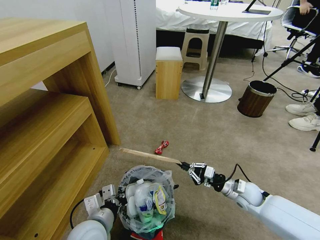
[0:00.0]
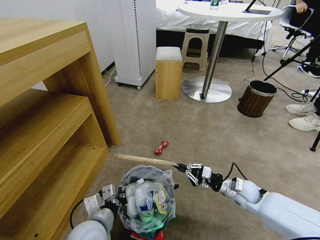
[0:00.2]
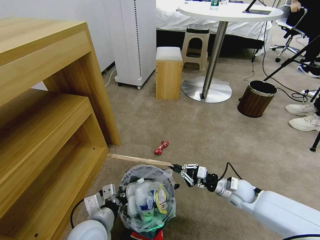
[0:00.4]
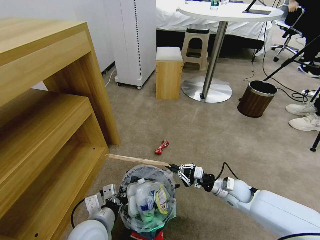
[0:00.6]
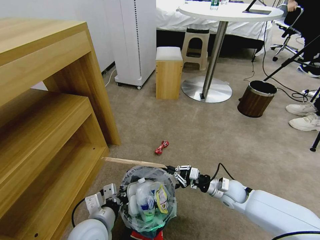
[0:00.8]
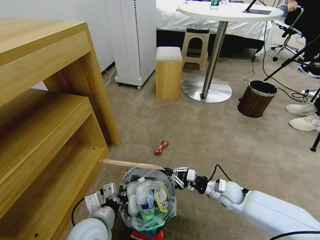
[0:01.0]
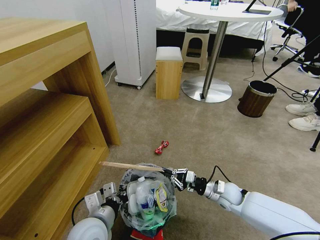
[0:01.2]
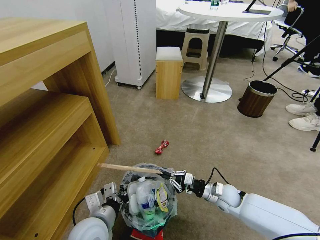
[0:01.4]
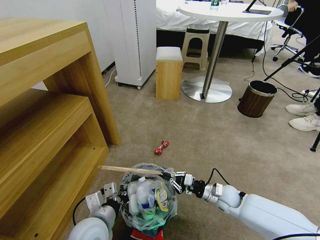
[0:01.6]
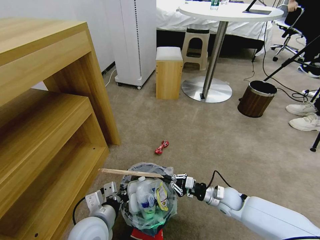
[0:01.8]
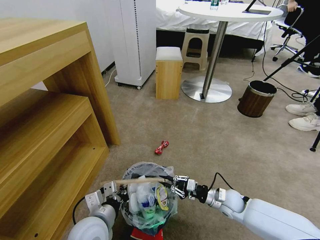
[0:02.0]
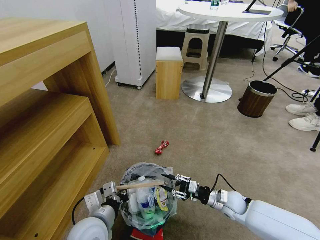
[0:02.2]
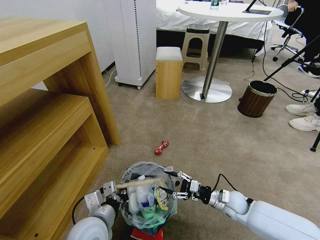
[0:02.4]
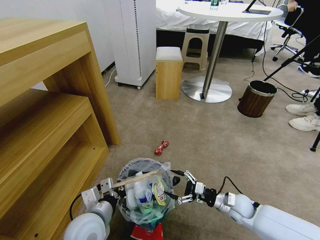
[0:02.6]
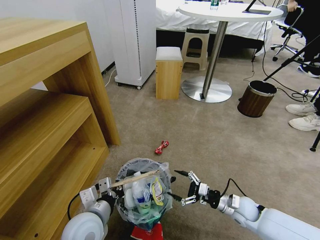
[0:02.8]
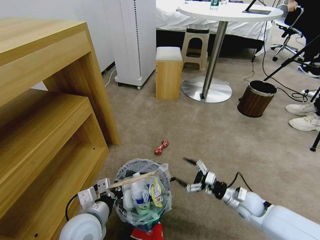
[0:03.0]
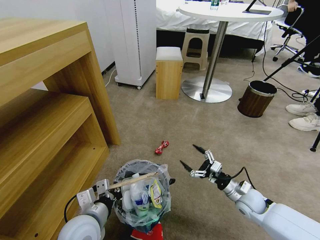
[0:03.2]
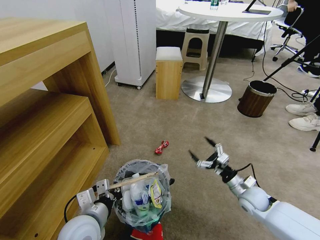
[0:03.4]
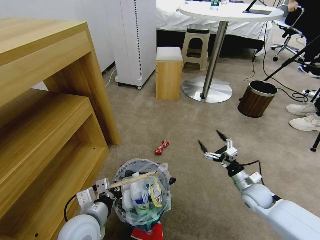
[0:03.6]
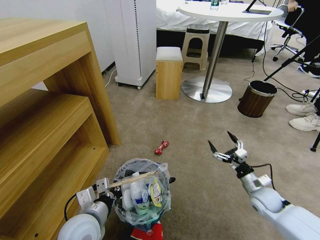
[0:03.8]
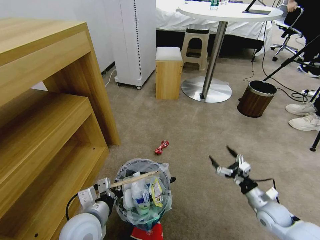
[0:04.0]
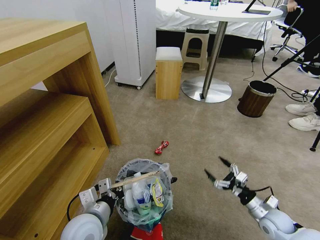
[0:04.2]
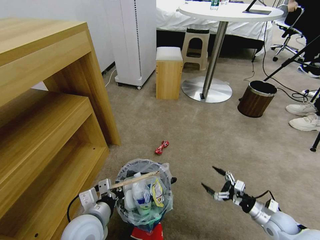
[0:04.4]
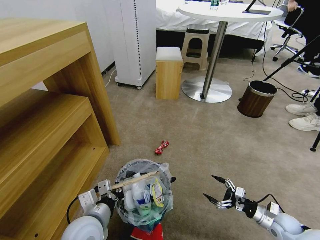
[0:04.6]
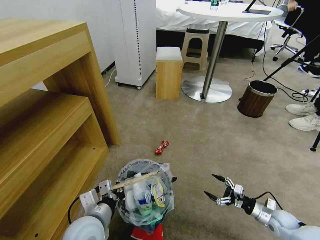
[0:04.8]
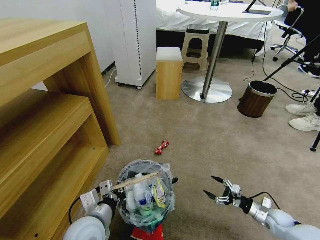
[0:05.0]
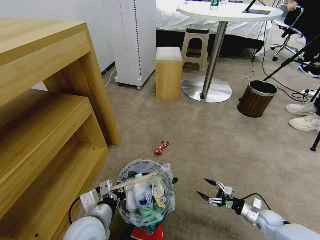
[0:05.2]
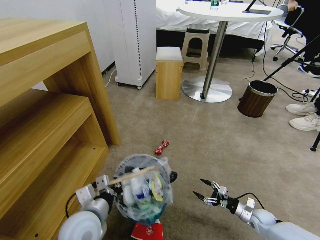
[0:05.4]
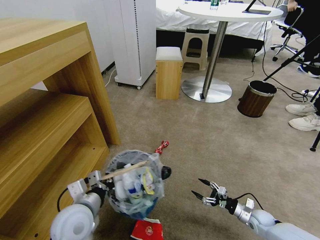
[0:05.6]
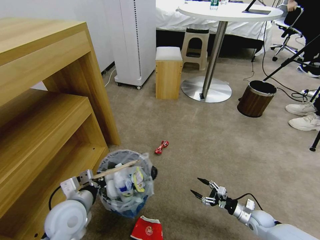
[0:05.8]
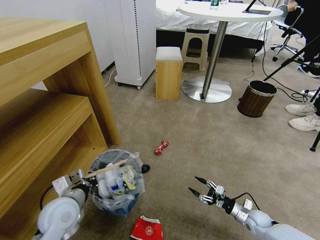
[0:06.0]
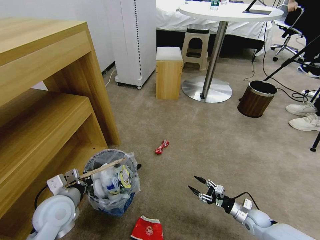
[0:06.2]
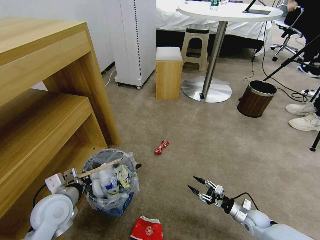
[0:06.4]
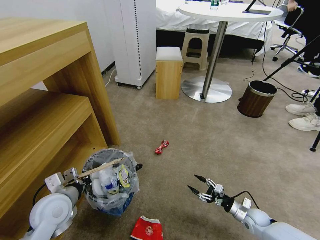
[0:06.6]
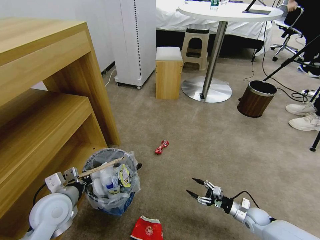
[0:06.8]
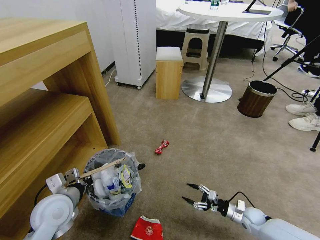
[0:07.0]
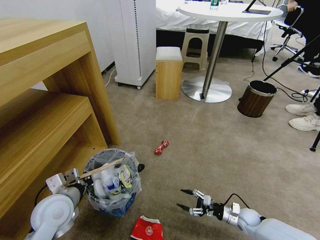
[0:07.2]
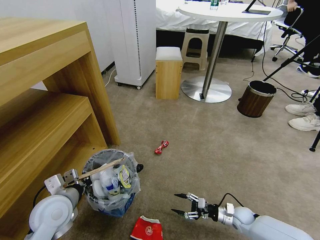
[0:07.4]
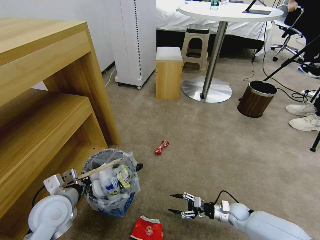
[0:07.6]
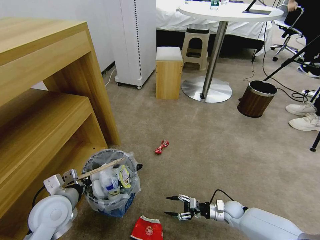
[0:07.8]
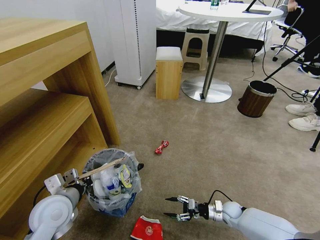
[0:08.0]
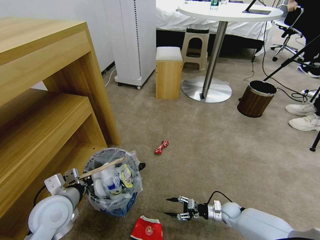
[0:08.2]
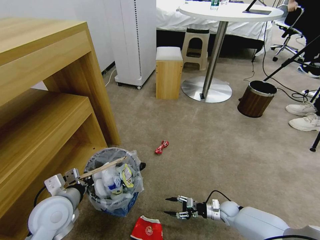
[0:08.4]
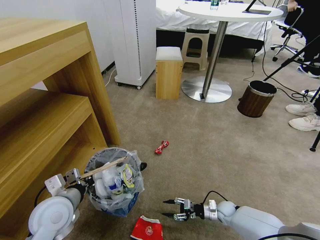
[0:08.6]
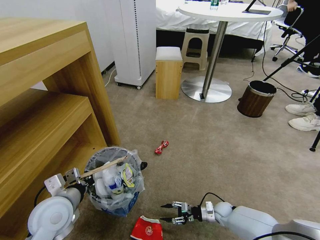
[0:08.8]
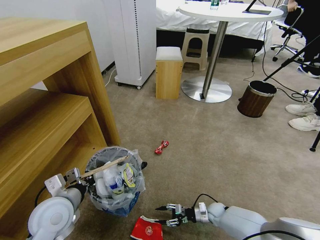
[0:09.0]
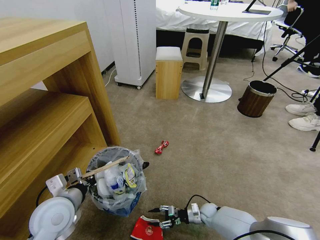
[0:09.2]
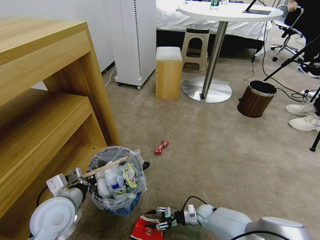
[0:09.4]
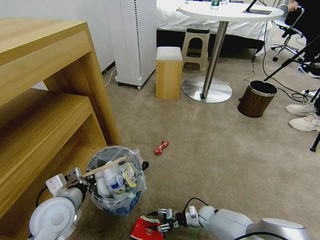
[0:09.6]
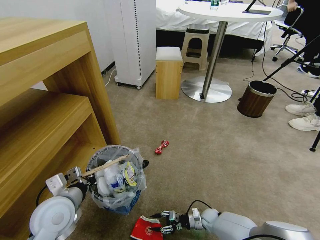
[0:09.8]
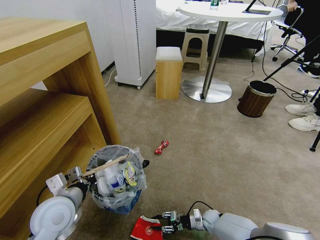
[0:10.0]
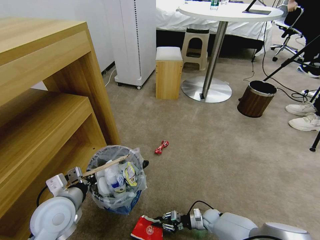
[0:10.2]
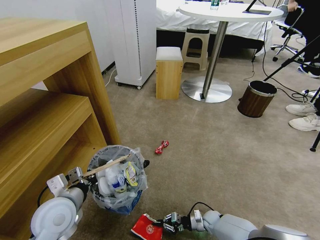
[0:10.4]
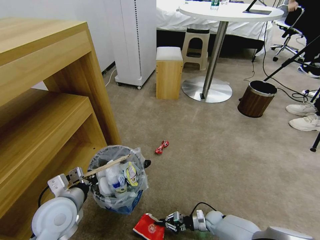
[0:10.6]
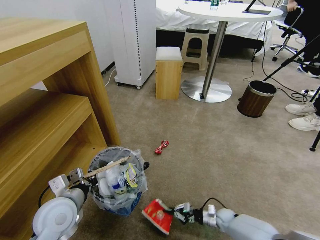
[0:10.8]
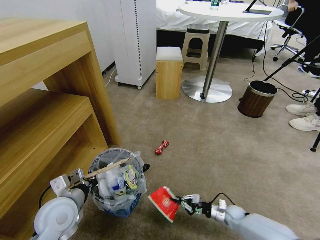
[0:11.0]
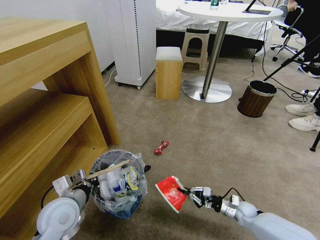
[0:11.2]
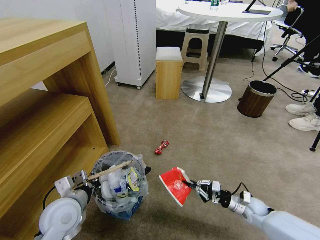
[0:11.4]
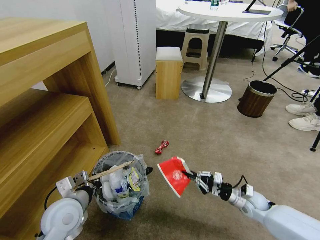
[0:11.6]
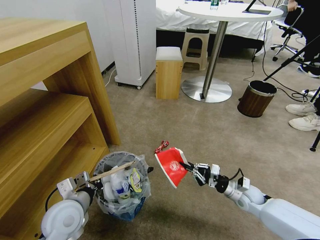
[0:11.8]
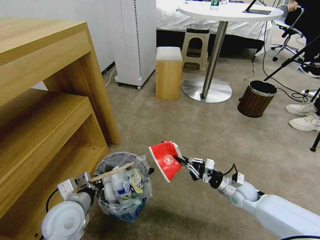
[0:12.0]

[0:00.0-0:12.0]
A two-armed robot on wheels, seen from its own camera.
Task of the whole recording: Pick up the trash bin and place the garbage on the floor into it.
0:00.0 to 0:01.6: The right gripper is displaced to the left by some 5 cm.
0:01.6 to 0:03.0: The right gripper goes roughly 5 cm to the right, and opens its fingers.
0:03.0 to 0:04.4: The right gripper moves to the right and backward, some 10 cm.
0:04.4 to 0:06.0: The right gripper moves downward, approximately 10 cm; the left gripper shifts some 10 cm to the left.
0:06.0 to 0:07.6: The right gripper heads to the left, covering some 5 cm.
0:07.6 to 0:09.0: The right gripper is displaced downward and to the left by roughly 10 cm.
0:09.0 to 0:10.4: The right gripper closes up.
0:10.4 to 0:12.0: The right gripper heads upward, covering roughly 25 cm.

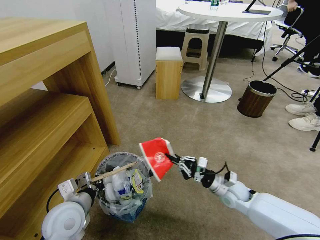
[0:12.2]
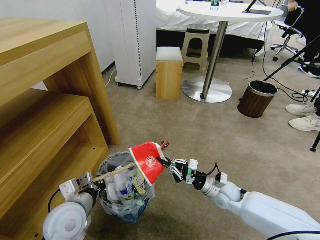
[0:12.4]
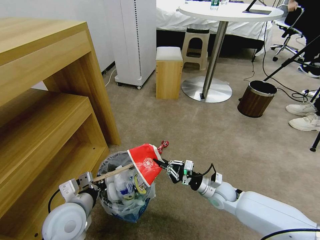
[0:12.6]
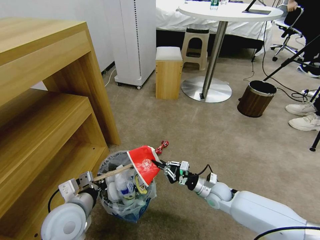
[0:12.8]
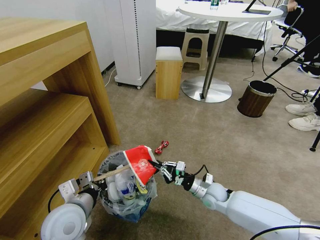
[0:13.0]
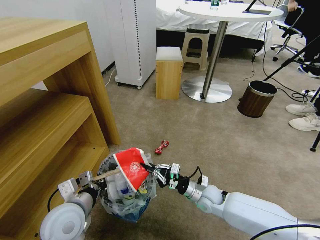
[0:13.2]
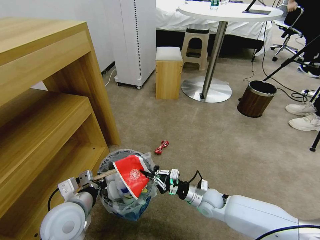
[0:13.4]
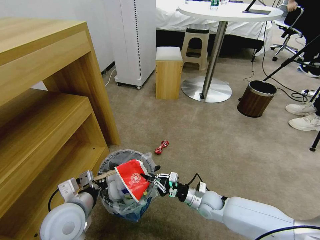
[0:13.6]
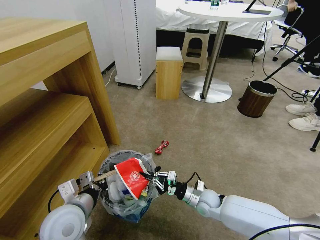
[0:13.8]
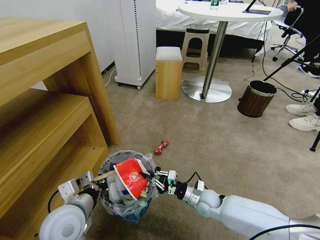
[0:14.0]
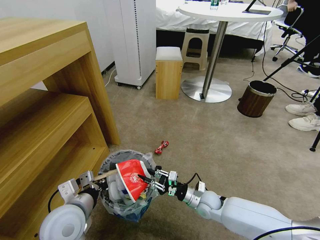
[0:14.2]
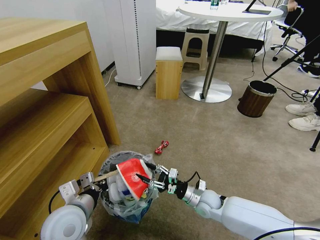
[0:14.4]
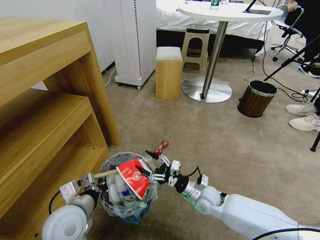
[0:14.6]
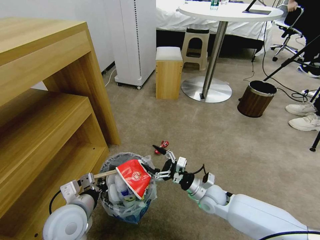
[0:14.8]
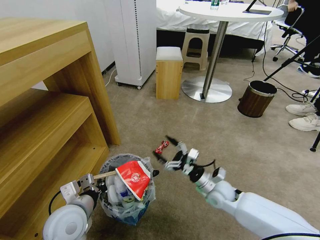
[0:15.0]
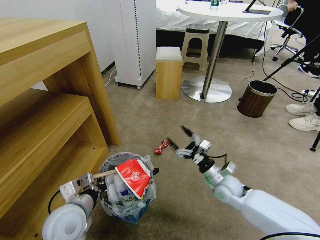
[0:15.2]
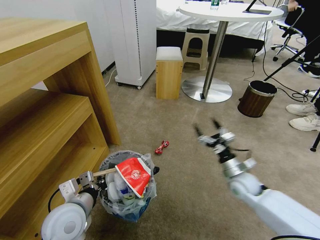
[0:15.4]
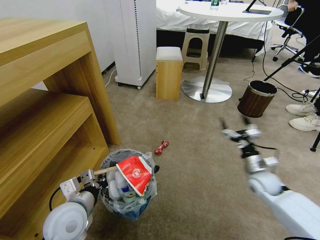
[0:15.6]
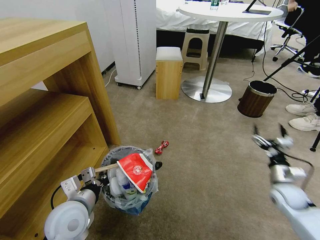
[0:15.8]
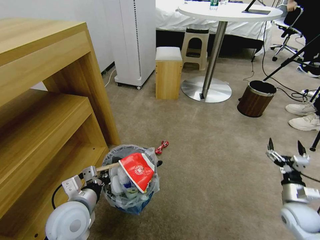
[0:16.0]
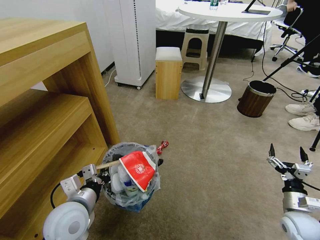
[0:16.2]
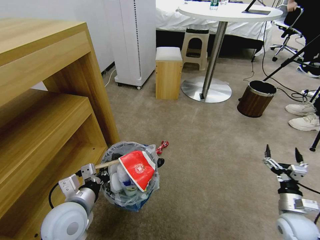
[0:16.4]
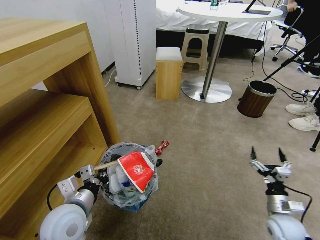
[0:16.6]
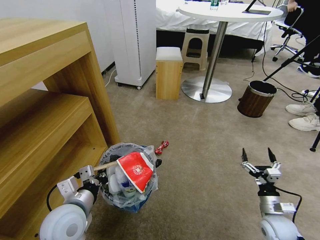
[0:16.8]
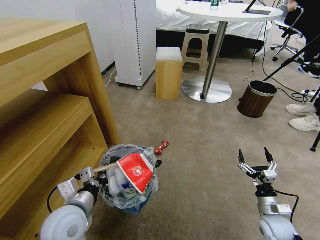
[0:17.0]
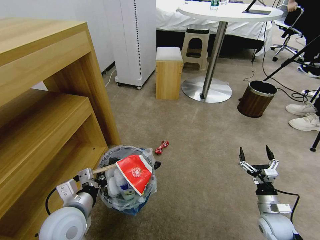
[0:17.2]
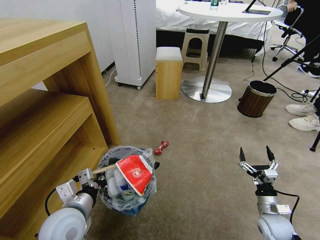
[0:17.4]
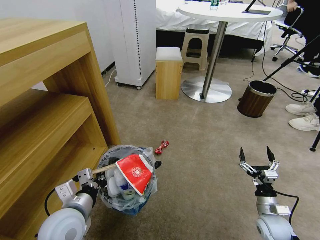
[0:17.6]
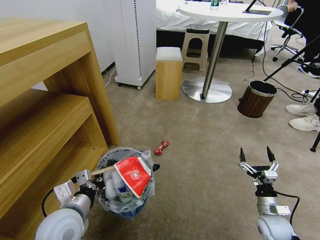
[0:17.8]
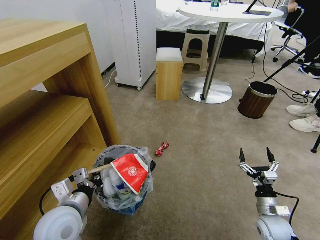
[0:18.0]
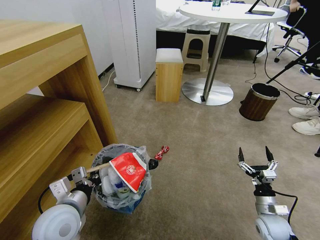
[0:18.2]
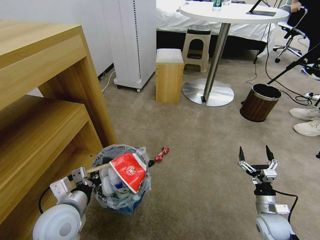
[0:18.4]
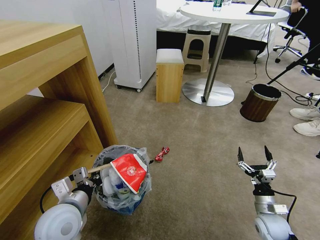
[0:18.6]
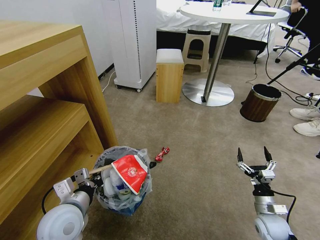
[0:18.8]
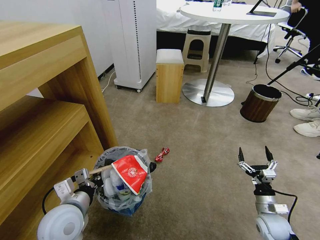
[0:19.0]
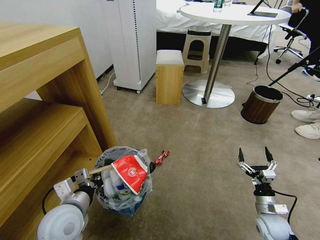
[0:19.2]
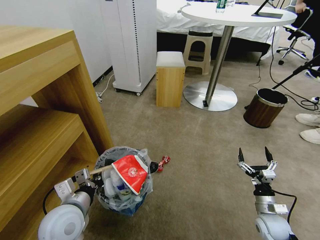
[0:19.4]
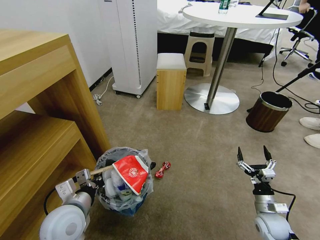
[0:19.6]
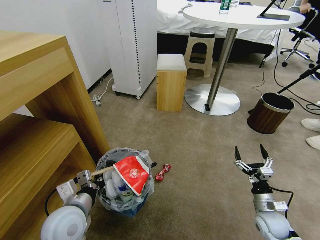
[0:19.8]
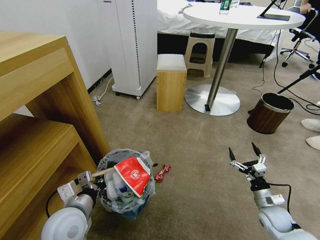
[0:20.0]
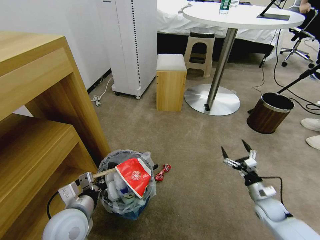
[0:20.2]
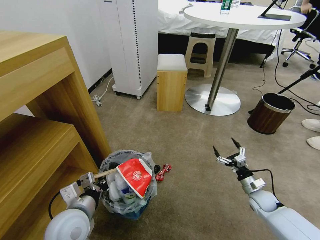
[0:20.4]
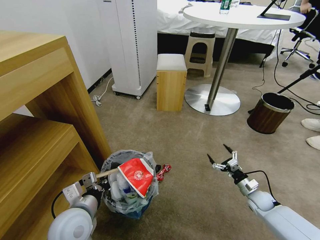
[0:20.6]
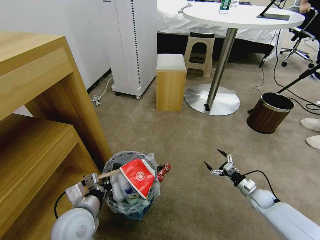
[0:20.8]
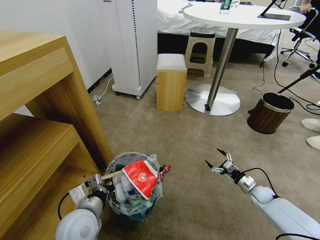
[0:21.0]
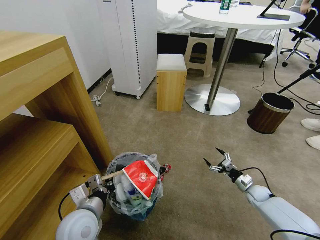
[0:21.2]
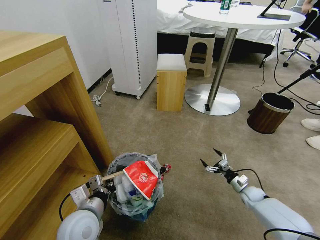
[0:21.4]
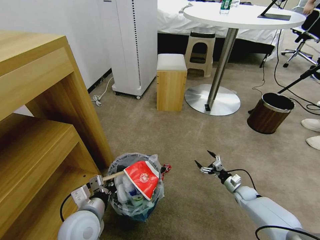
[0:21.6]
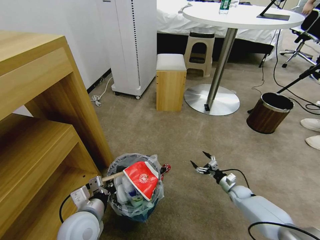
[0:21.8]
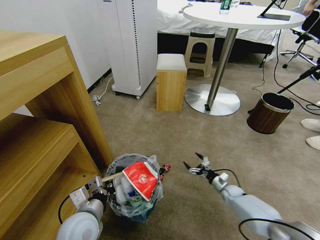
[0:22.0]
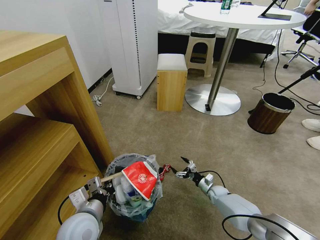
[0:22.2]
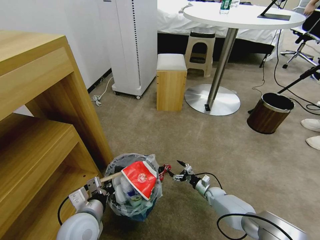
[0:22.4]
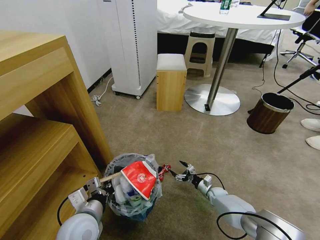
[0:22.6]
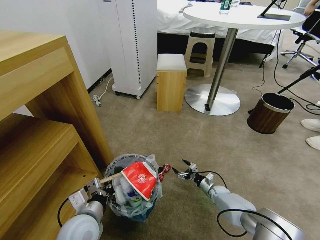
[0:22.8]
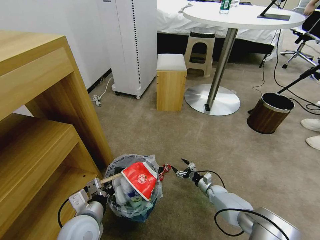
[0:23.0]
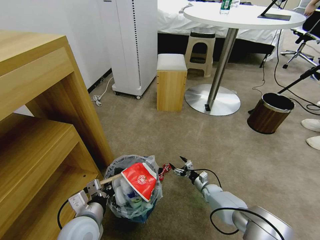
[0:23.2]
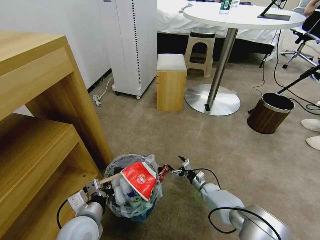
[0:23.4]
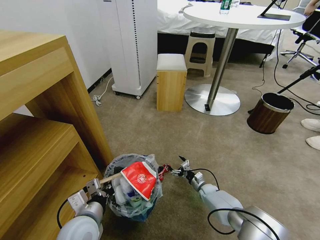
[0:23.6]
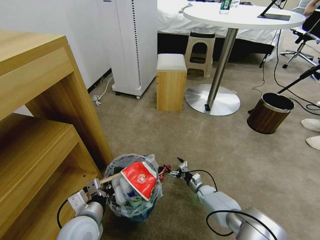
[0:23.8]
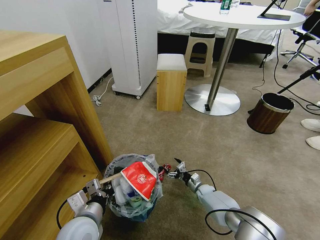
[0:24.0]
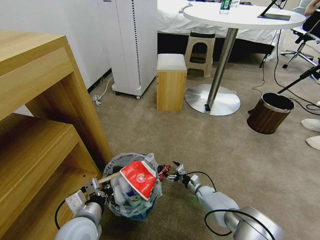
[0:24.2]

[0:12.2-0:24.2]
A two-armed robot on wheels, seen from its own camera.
Task of the whole recording: Pick up the trash bin and place the garbage on the floor into it.
0:12.2 to 0:13.8: The right gripper is displaced to the left and downward by some 10 cm.
0:13.8 to 0:15.2: The right gripper is displaced upward and to the right by approximately 10 cm, and opens.
0:15.2 to 0:16.6: The right gripper moves to the right and backward, about 20 cm.
0:19.8 to 0:21.2: The right gripper heads forward, downward and to the right, covering some 15 cm.
0:21.2 to 0:22.6: The right gripper goes roughly 20 cm to the left and downward.
0:22.6 to 0:24.2: The right gripper shifts about 5 cm to the left.
